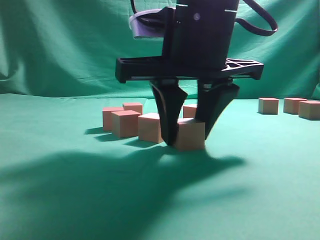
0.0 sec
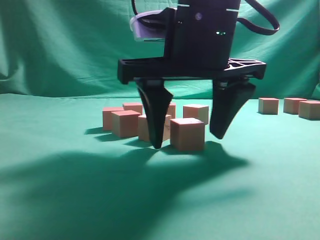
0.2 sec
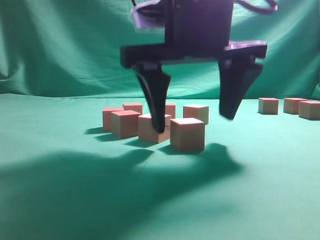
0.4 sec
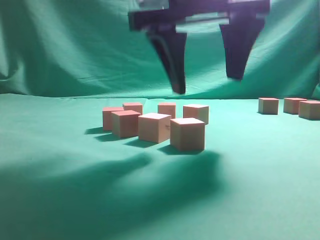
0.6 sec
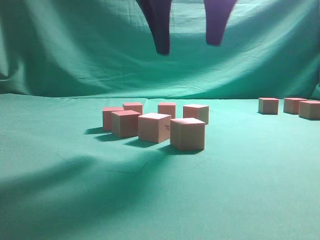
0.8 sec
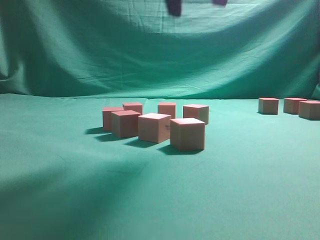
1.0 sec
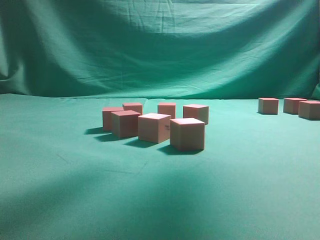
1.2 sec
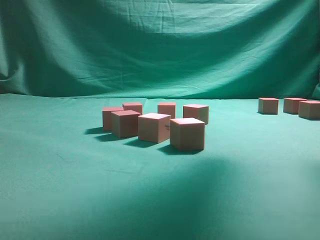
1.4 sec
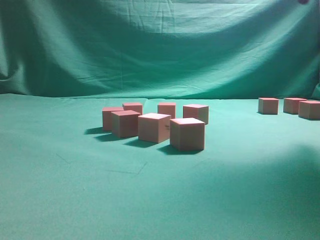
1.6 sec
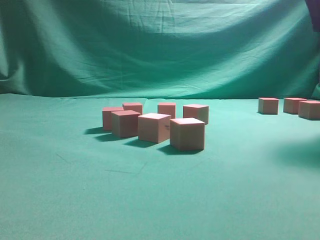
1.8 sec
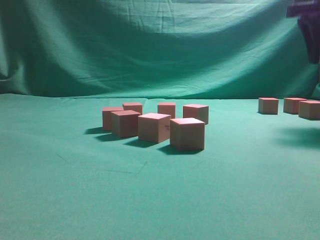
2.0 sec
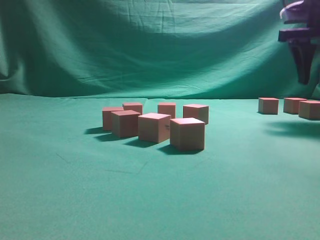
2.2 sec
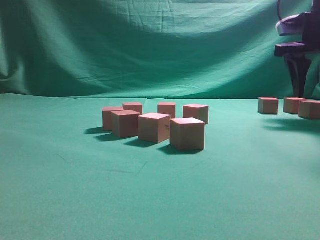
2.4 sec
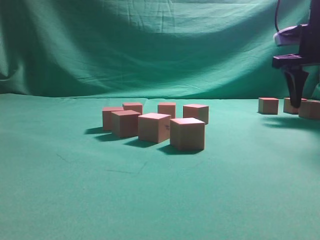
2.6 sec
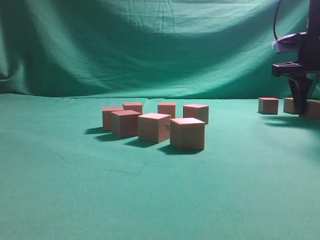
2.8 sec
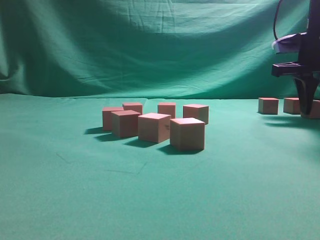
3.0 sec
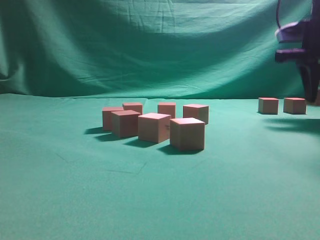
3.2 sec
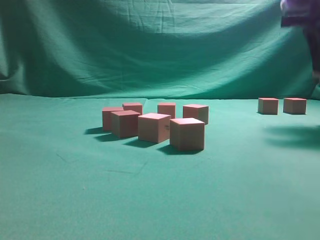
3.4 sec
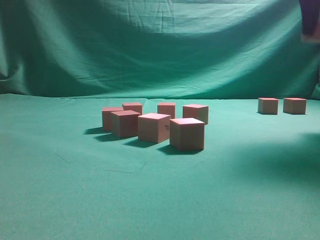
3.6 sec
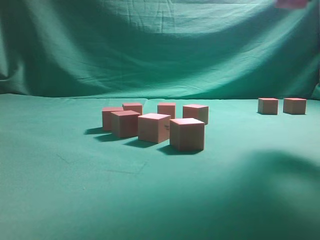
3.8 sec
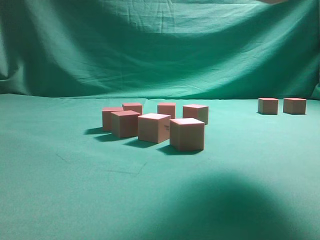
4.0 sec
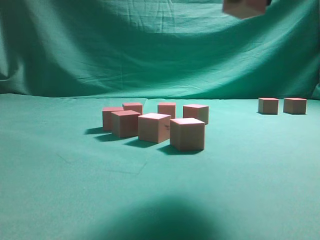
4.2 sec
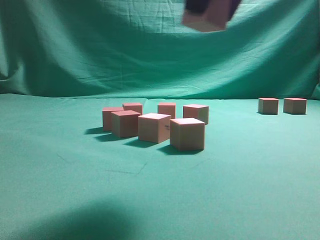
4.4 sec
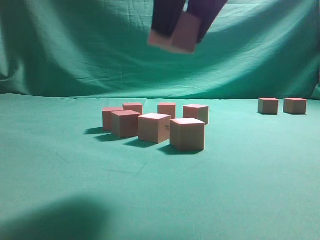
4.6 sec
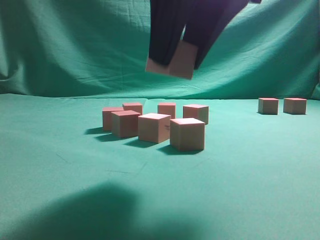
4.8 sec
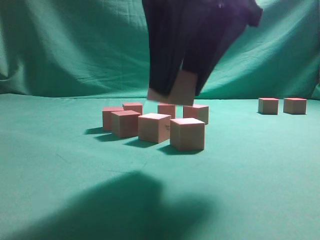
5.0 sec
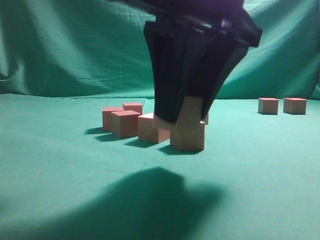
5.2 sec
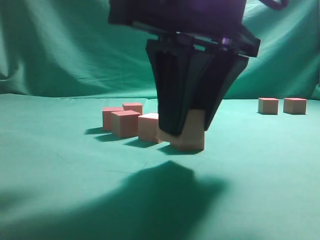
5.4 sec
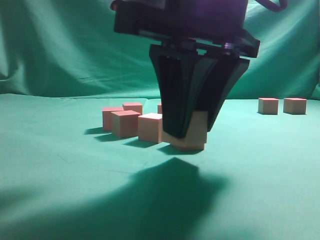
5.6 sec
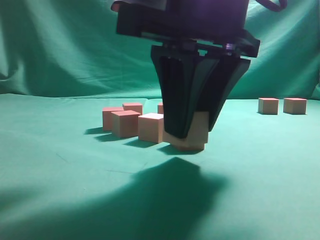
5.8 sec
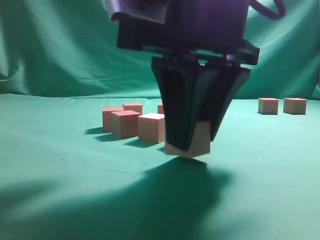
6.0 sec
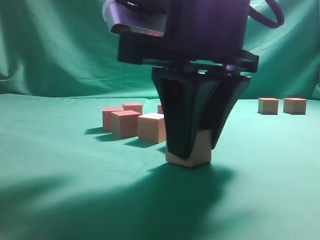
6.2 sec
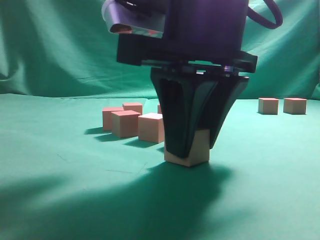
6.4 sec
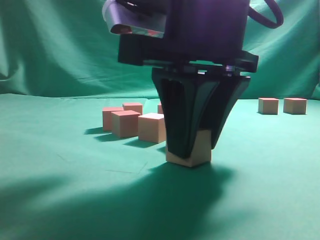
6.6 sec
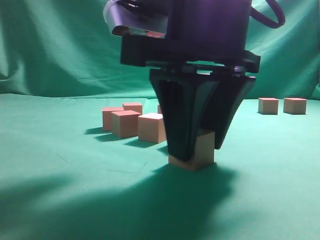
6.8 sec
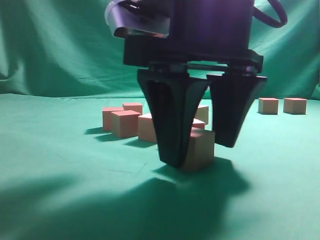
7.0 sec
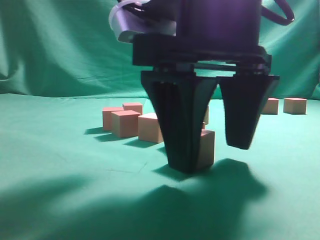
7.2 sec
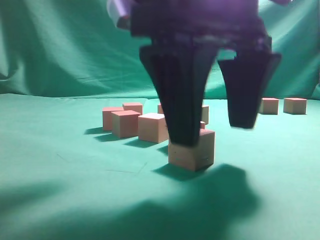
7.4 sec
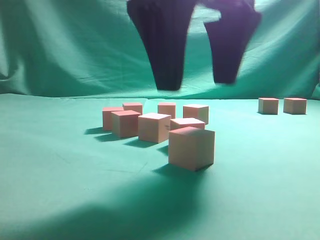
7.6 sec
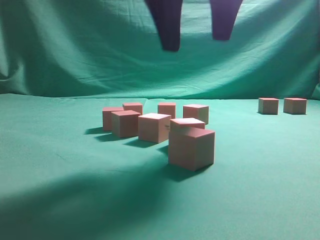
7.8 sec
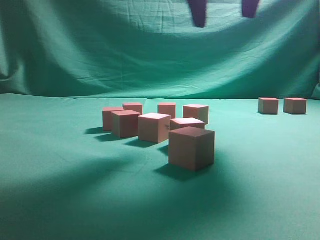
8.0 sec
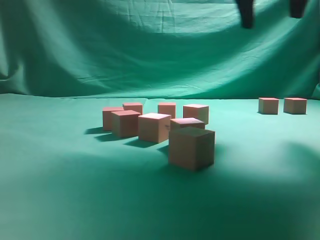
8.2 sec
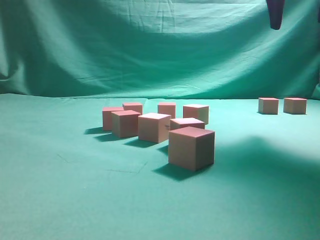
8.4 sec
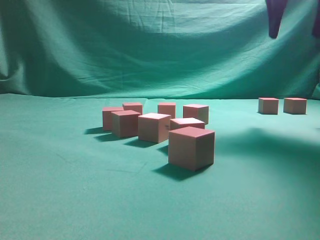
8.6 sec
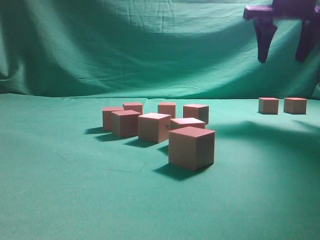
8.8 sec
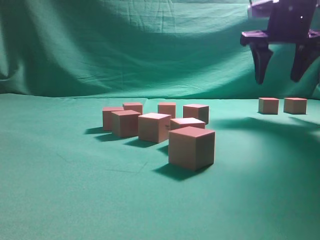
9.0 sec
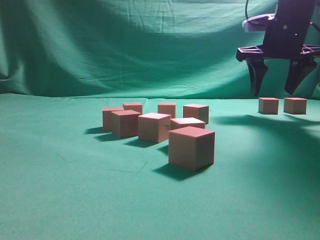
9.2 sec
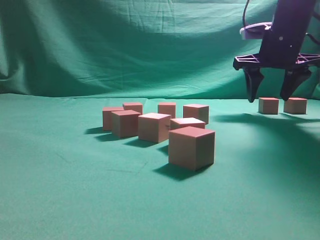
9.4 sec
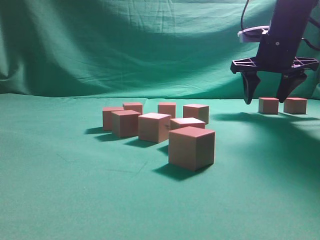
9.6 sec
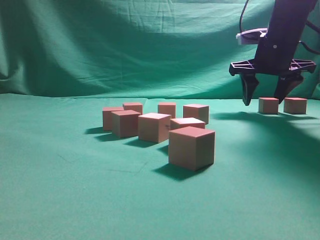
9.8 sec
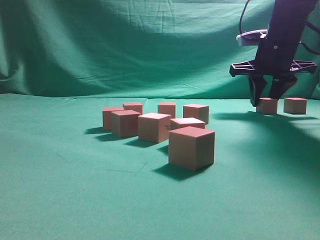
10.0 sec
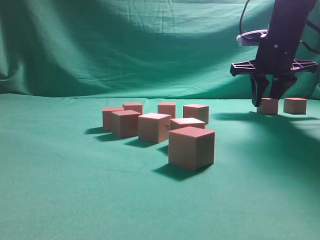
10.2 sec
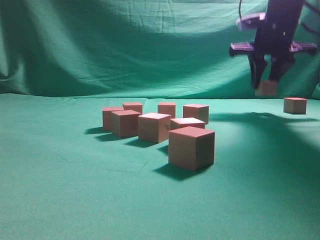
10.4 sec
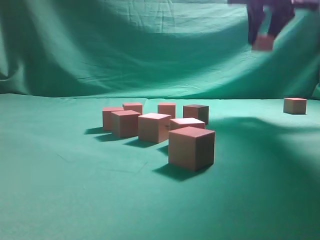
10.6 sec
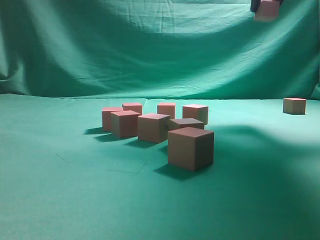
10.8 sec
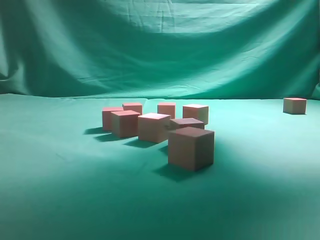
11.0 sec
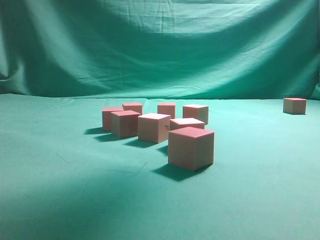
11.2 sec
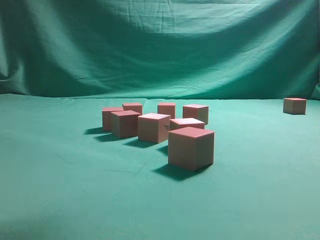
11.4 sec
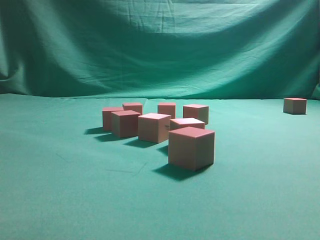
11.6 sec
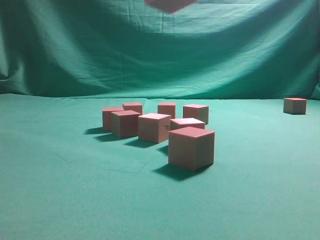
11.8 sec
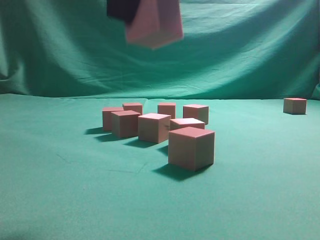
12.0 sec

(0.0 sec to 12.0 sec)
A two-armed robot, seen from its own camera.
Task of the whole recording: pick up the multiple cubes in two columns one by one and place them in another position on the table.
Step, 1.0 sec - 3.0 sec: Pick up the block on the table.
Step, 3.4 sec - 7.8 sec: Place the block at the correct position to assemble the letter S.
Step, 8.0 sec - 10.2 sec: Pick up the block on the table.
0.0 sec - 1.6 sec: The right gripper goes roughly 25 cm upward, to the right and forward, and opens up.
1.6 sec - 3.0 sec: The right gripper travels downward and forward by roughly 20 cm, and closes its fingers.
3.0 sec - 4.4 sec: The right gripper heads backward, to the left and upward, covering roughly 30 cm.
4.4 sec - 6.0 sec: The right gripper moves downward, roughly 10 cm.
6.0 sec - 7.6 sec: The right gripper opens.
7.6 sec - 9.0 sec: The right gripper goes approximately 25 cm forward and to the right.
9.0 sec - 10.4 sec: The right gripper closes.
10.4 sec - 12.0 sec: The right gripper is displaced backward and to the left by about 35 cm.

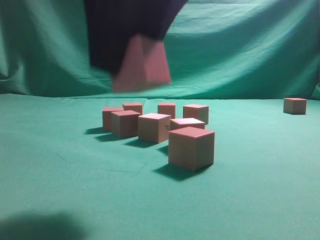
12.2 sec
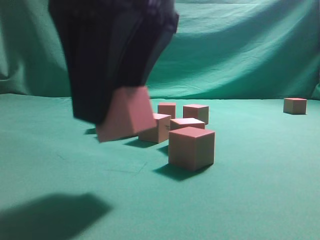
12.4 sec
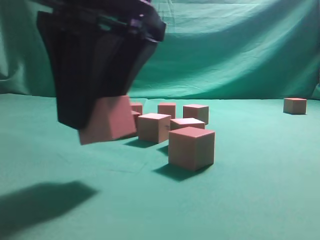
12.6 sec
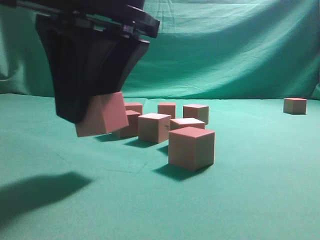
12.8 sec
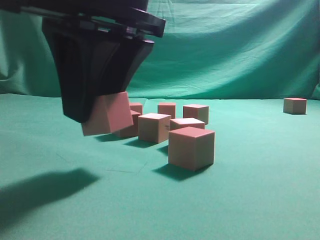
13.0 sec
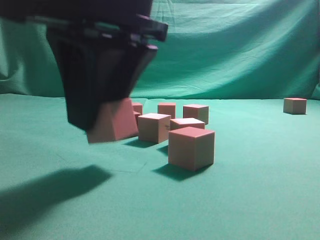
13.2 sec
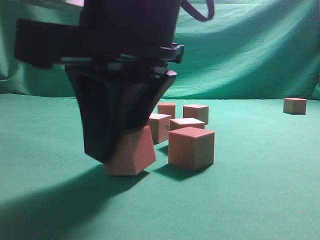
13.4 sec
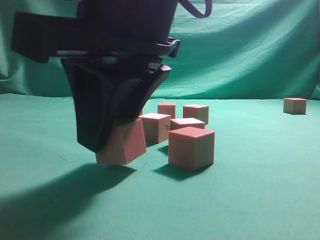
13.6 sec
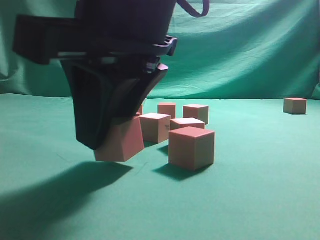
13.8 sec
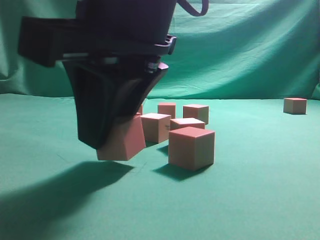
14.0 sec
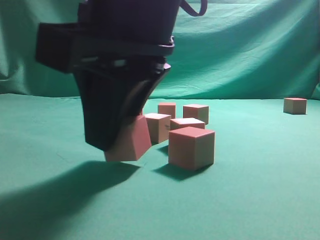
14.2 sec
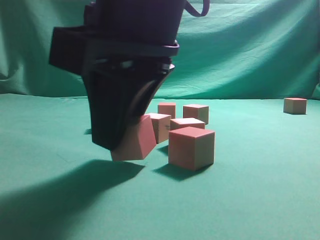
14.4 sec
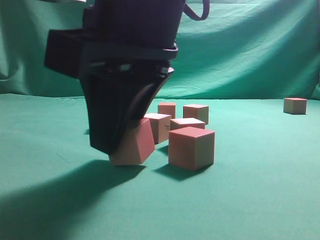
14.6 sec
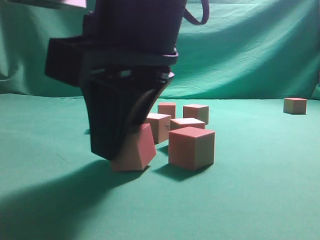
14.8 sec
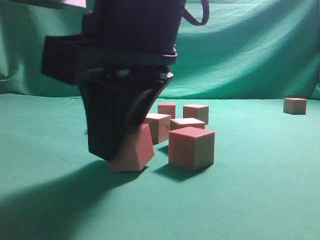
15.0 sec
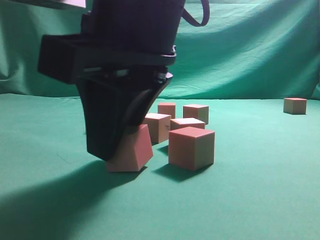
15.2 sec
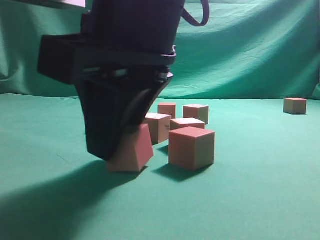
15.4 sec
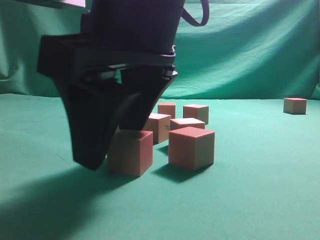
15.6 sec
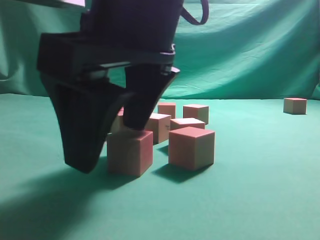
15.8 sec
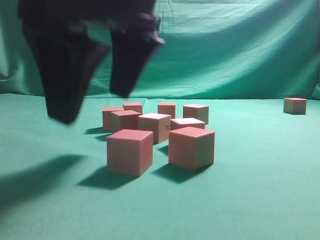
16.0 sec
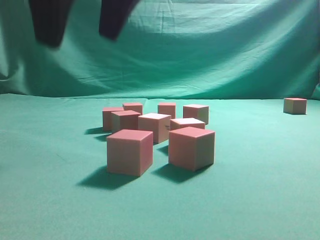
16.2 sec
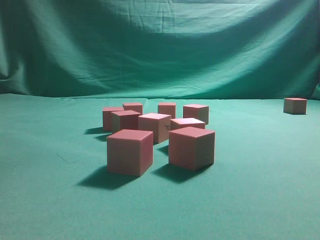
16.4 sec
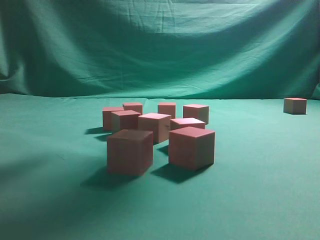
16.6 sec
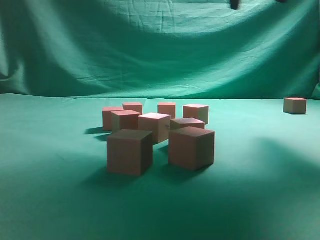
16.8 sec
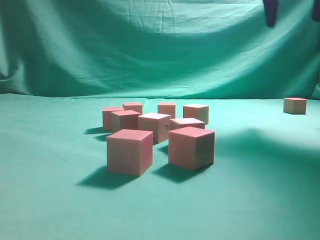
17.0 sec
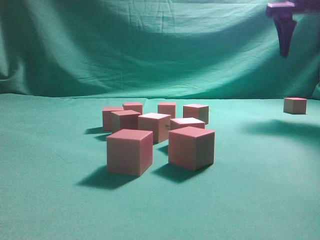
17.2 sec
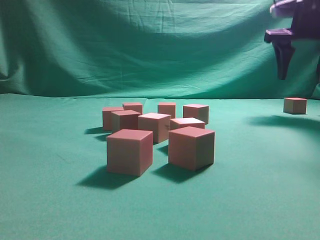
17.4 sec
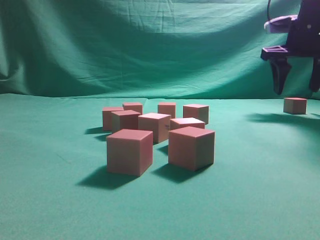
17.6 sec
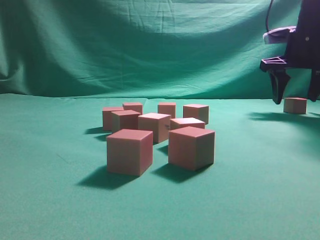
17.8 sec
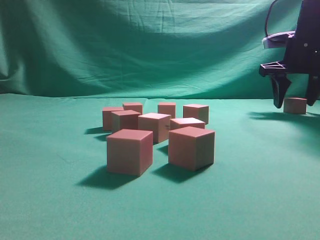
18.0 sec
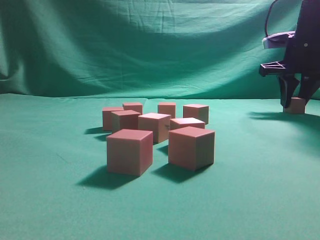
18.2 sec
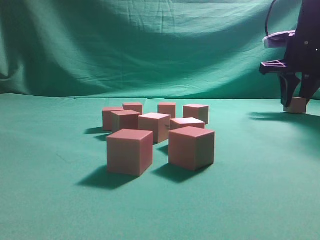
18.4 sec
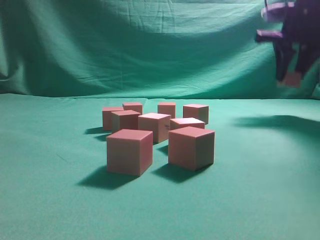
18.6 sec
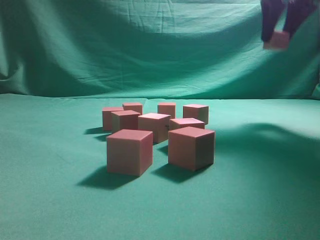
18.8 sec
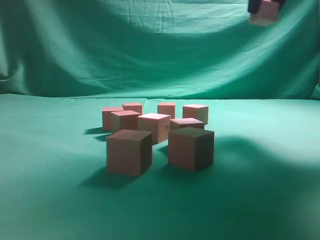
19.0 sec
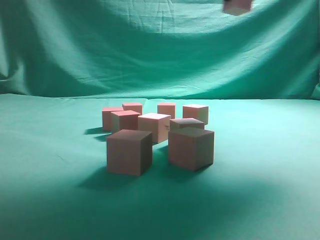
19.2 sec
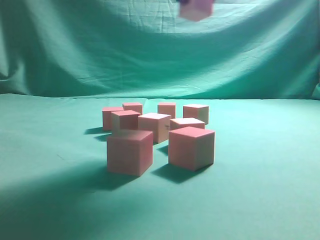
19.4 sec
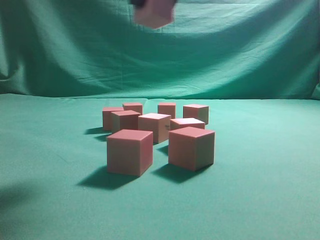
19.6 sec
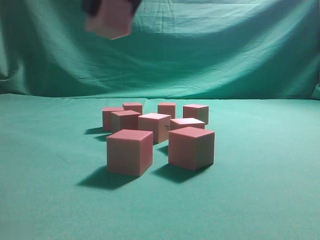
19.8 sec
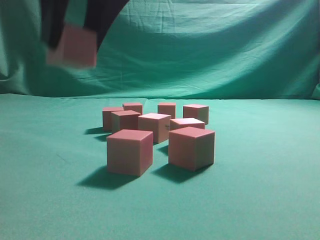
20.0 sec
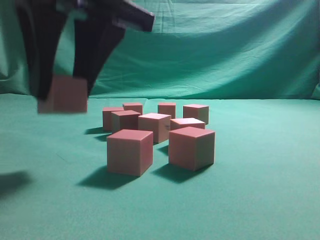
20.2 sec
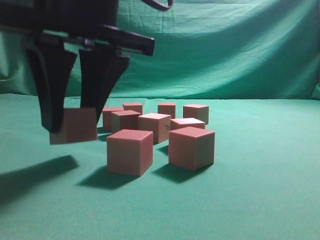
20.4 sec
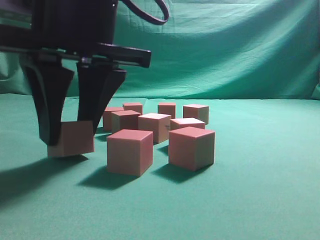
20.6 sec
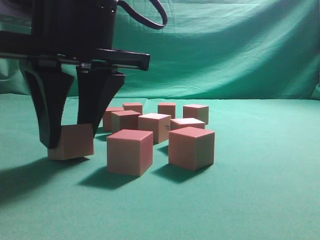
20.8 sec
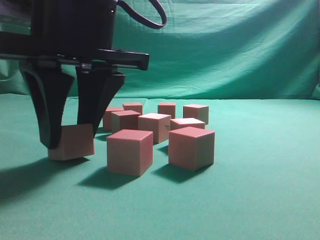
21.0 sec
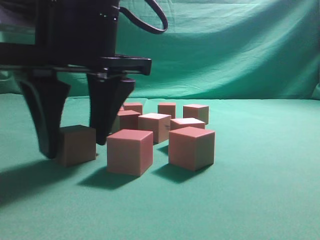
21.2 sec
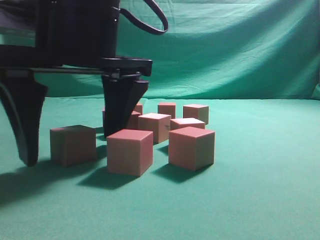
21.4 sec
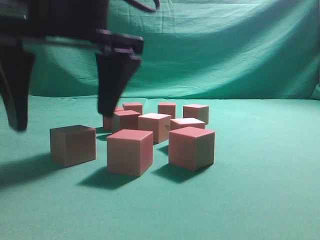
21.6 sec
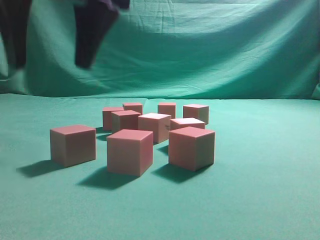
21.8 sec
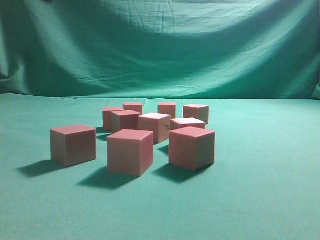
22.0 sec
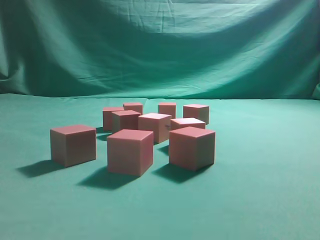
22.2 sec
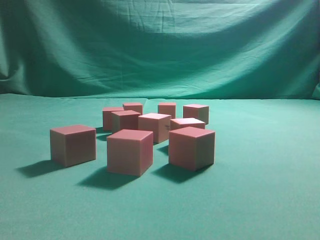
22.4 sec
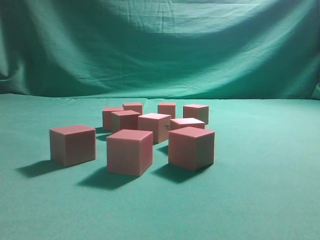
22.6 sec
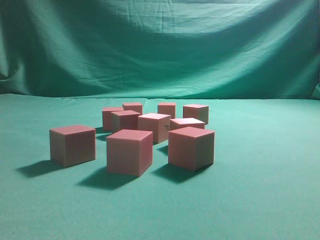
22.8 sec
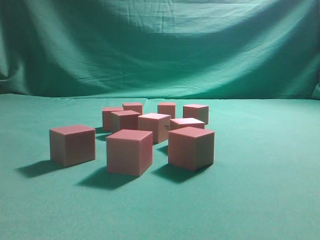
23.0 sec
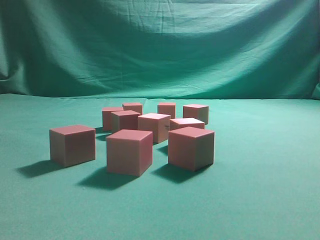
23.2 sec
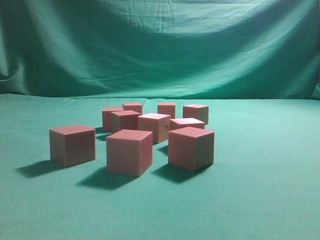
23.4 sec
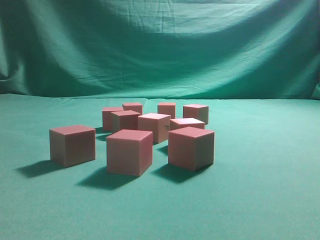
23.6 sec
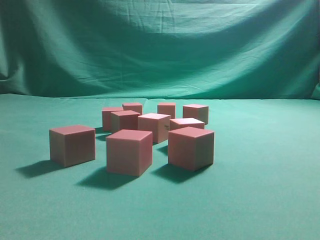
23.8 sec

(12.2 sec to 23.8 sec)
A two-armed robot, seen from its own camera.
Task of the whole recording: pick up the multiple cubes in two columns one by one and place them in another position on the table.
Step, 12.2 sec - 16.0 sec: Place the block at the correct position to assemble the letter S.
Step, 16.2 sec - 18.4 sec: Pick up the block on the table.
Step, 18.8 sec - 21.8 sec: Place the block at the correct position to assemble the letter S.
12.2 sec - 13.6 sec: The right gripper is displaced downward by roughly 5 cm.
13.6 sec - 15.0 sec: There are only small adjustments of the grippers.
15.0 sec - 16.6 sec: The right gripper travels upward and forward by some 20 cm, and opens up.
16.6 sec - 18.0 sec: The right gripper moves to the right, forward and downward, some 30 cm.
18.0 sec - 19.4 sec: The right gripper shifts approximately 30 cm backward, to the left and upward, and closes up.
19.4 sec - 21.0 sec: The right gripper moves downward, to the left and backward, roughly 20 cm.
21.0 sec - 22.4 sec: The right gripper travels upward by some 25 cm, and closes.
